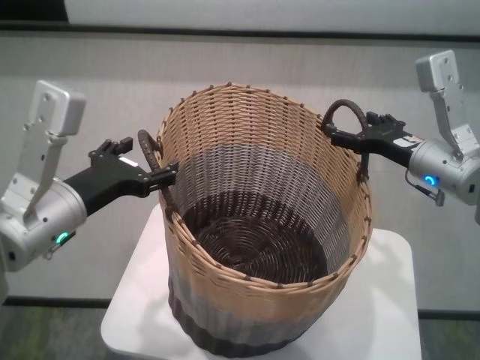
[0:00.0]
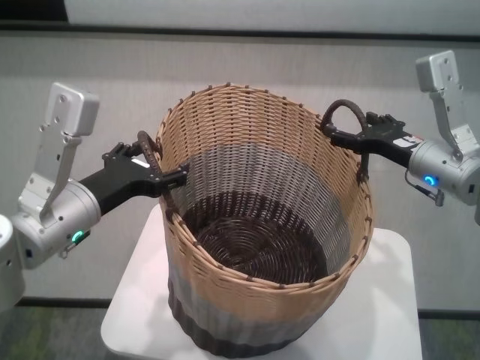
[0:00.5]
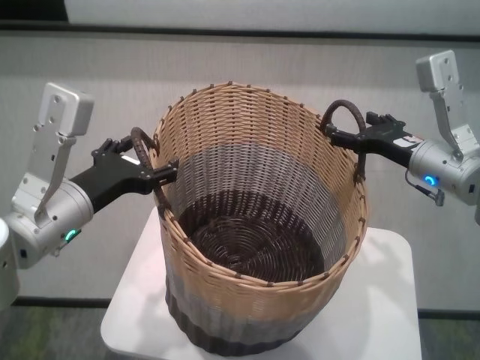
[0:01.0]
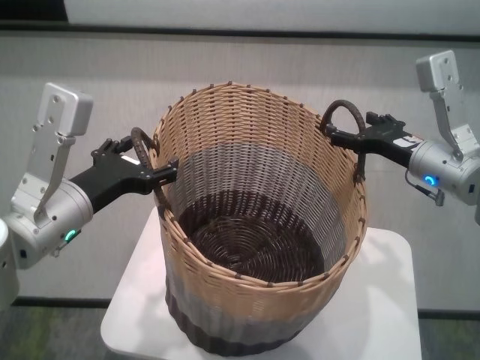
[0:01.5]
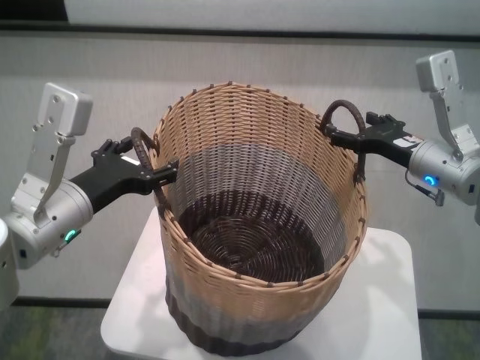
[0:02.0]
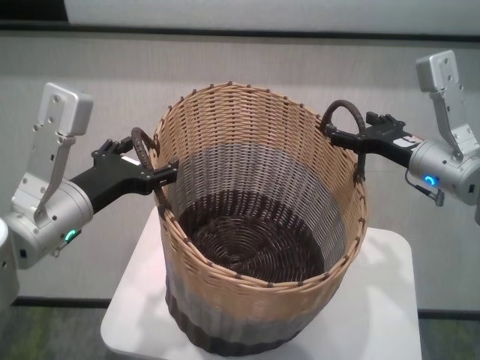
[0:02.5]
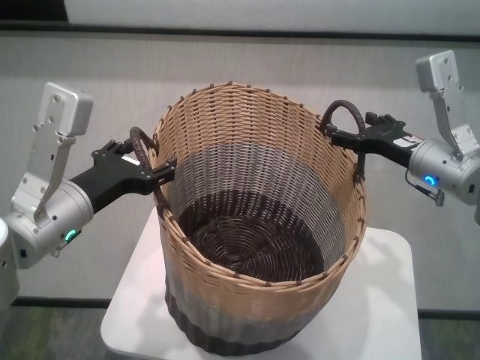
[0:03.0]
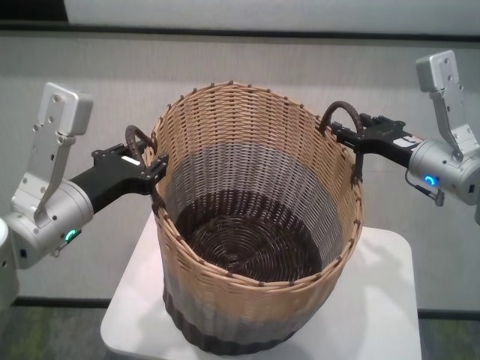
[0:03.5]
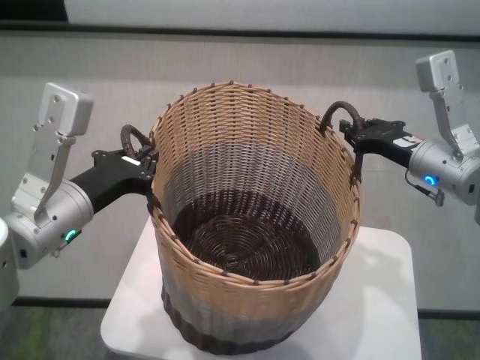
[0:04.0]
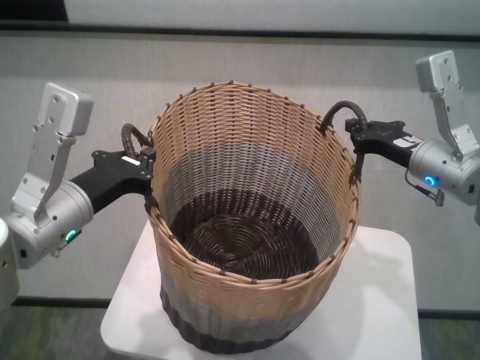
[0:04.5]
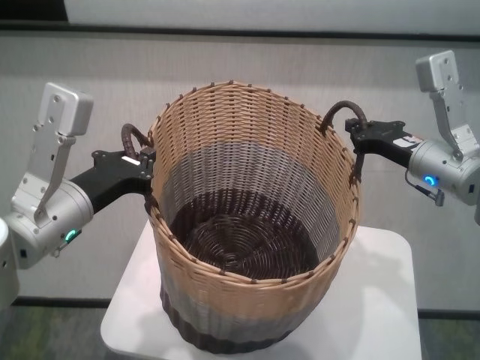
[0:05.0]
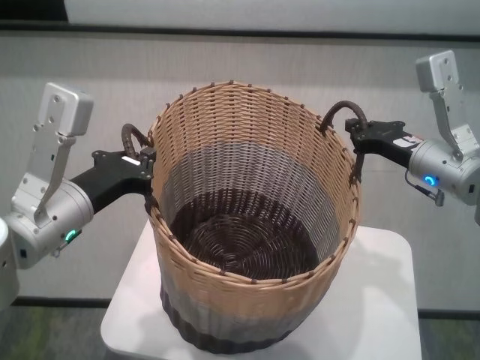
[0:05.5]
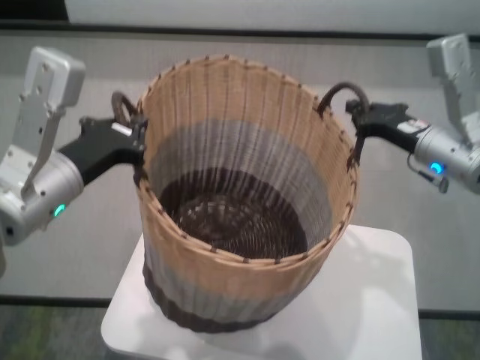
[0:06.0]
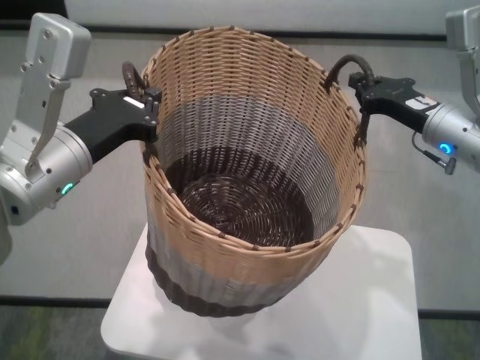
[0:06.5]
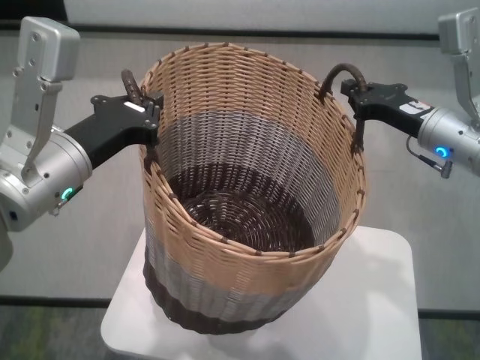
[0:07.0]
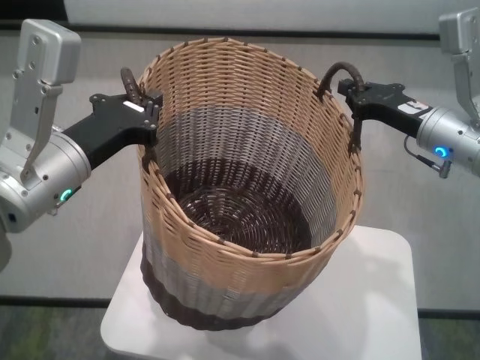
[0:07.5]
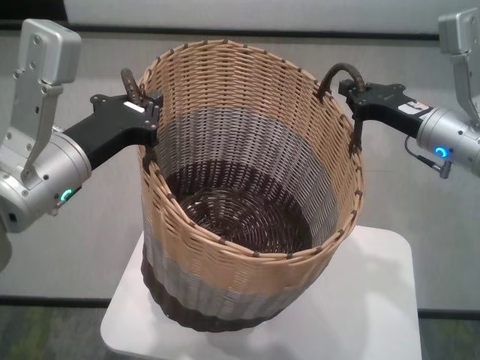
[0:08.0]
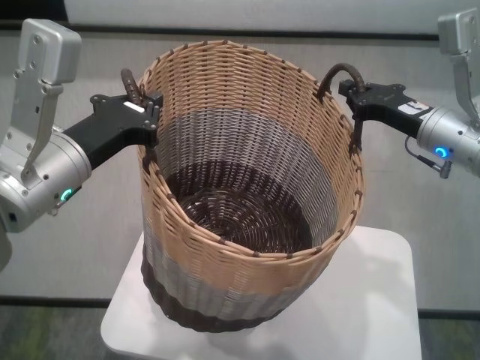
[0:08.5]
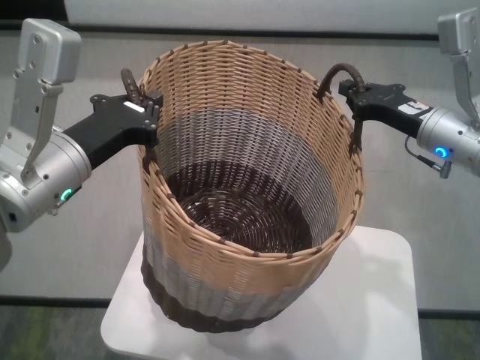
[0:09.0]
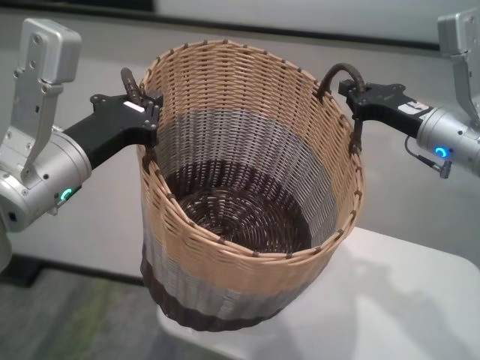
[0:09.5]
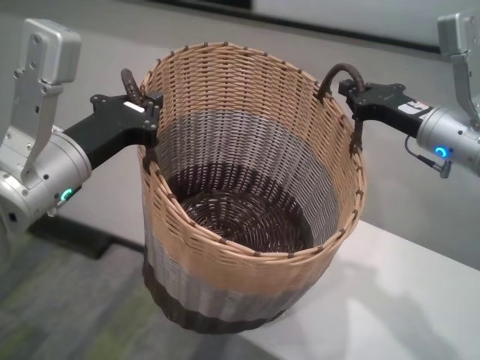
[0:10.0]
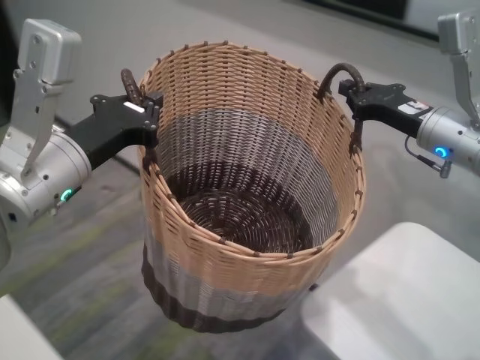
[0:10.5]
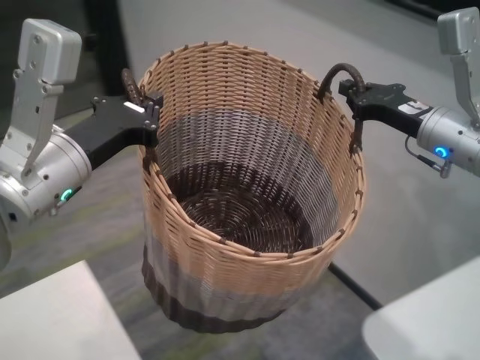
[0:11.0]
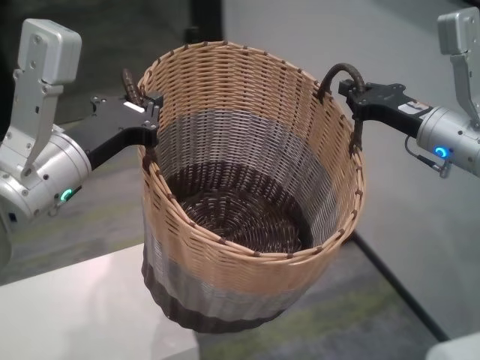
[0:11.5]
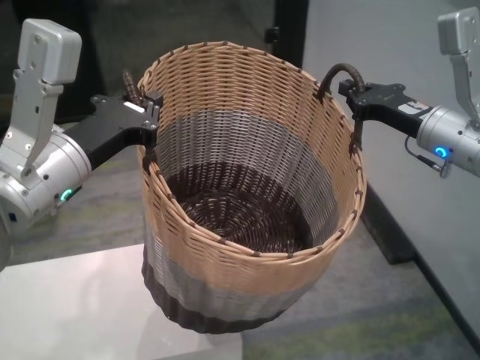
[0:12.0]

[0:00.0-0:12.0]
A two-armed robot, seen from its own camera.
Task of the whole recording: carry the clothes basket in coordination with both hands.
Step, 0:00.0 to 0:05.5: Grasp the basket with both grippers.

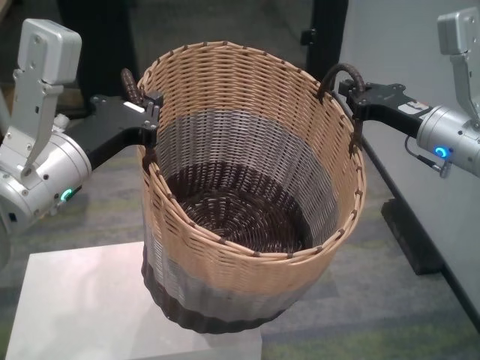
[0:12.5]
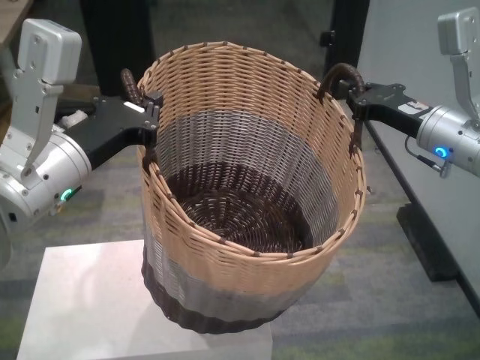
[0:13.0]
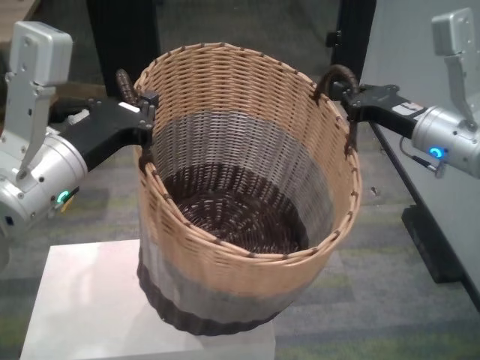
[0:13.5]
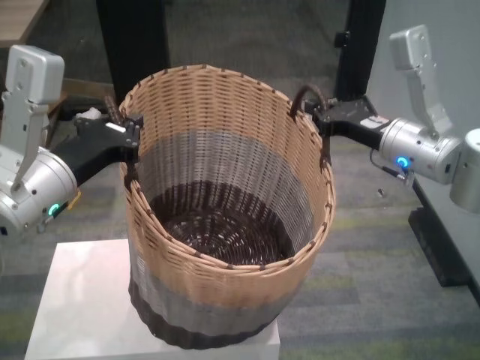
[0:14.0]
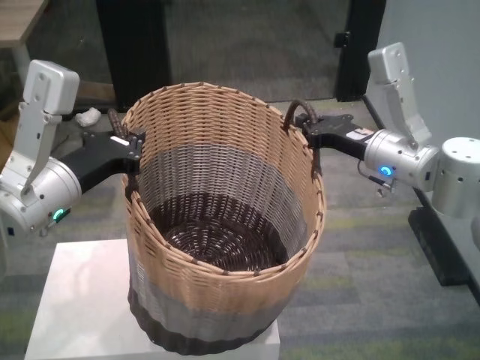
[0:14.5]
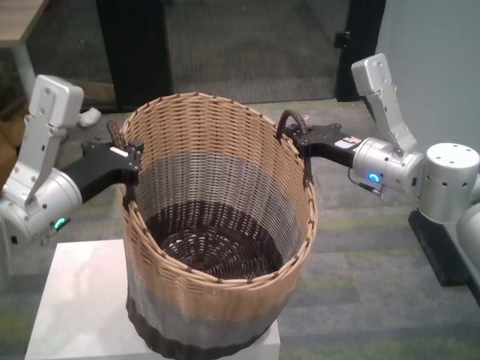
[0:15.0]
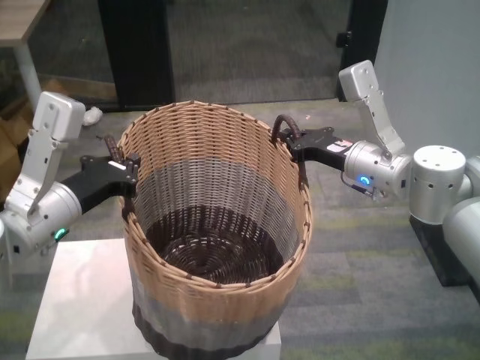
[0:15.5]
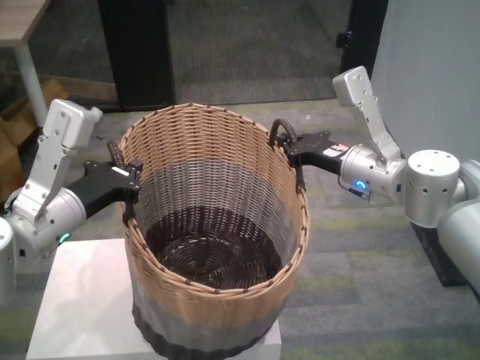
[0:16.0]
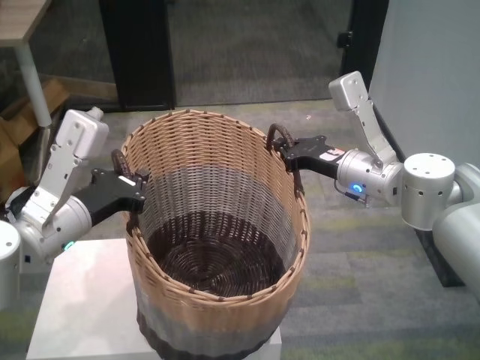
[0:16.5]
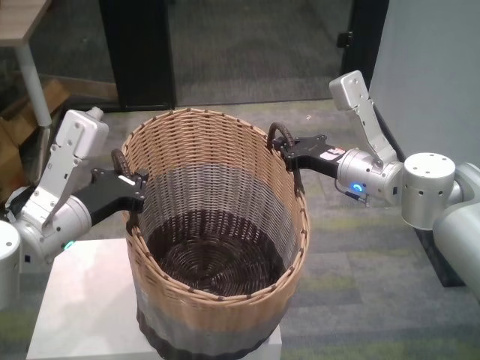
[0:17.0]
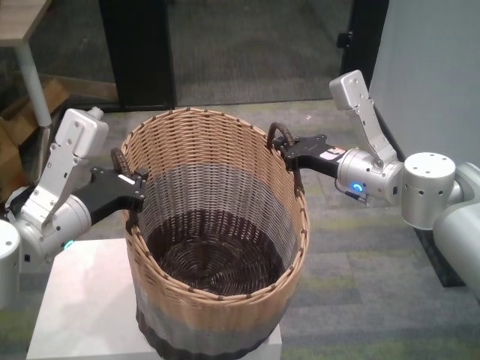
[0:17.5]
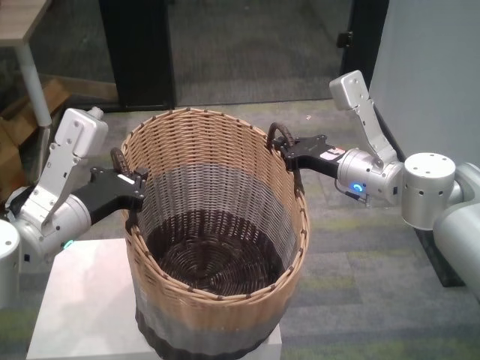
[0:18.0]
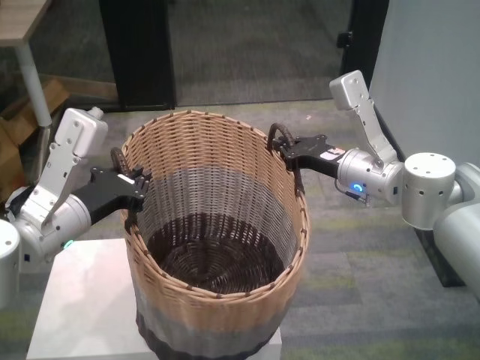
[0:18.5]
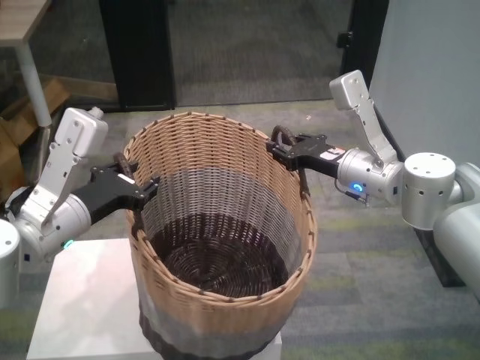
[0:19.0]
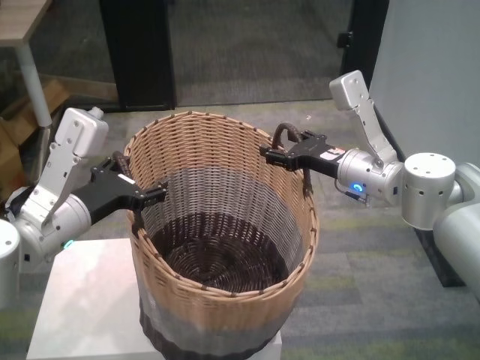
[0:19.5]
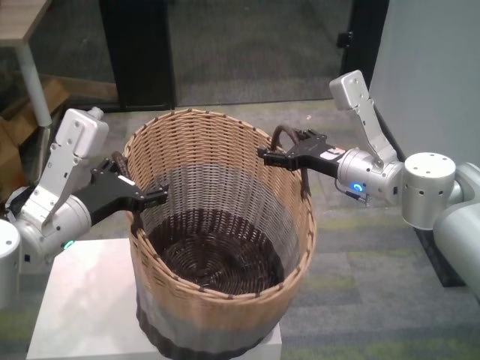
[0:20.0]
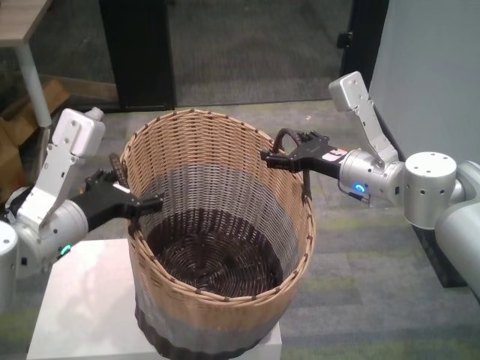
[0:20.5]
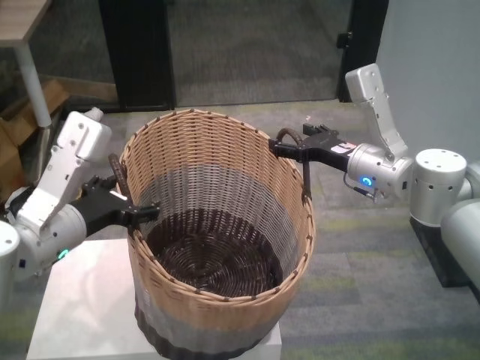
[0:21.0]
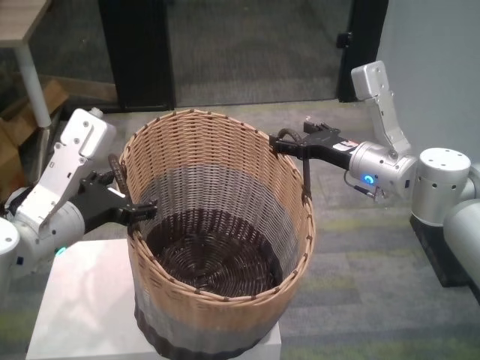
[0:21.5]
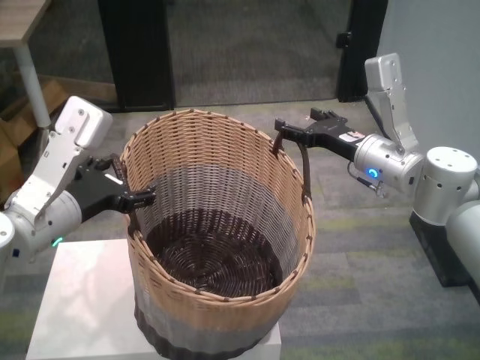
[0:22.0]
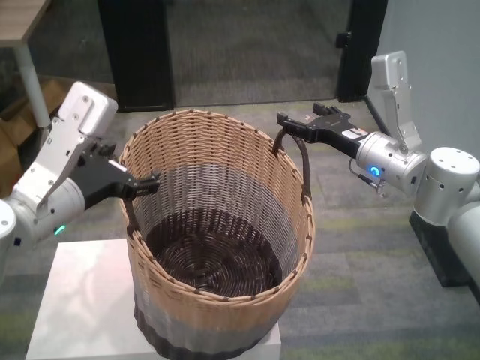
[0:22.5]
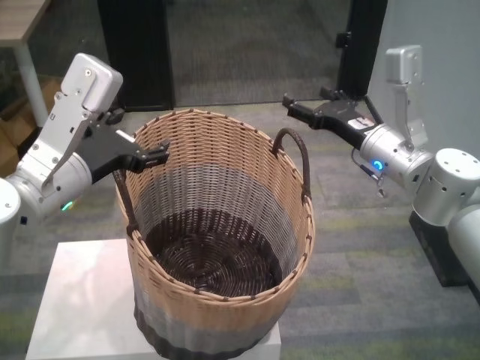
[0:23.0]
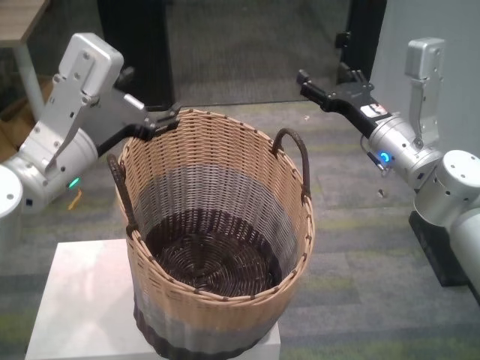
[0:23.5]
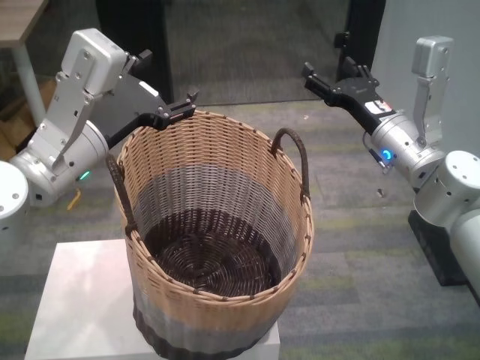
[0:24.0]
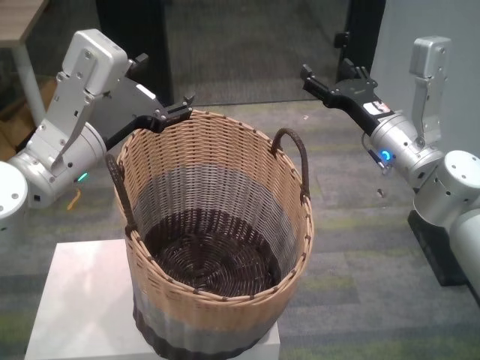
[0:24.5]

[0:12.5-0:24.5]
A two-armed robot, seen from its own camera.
Task of the whole recording: carry the clothes basket in coordination with both hands.
Step, 0:14.0 to 0:19.5: Place the basket on the table with both grippers.

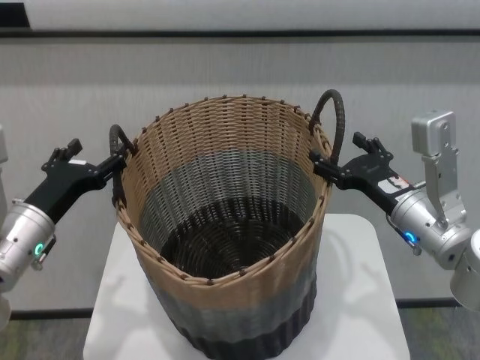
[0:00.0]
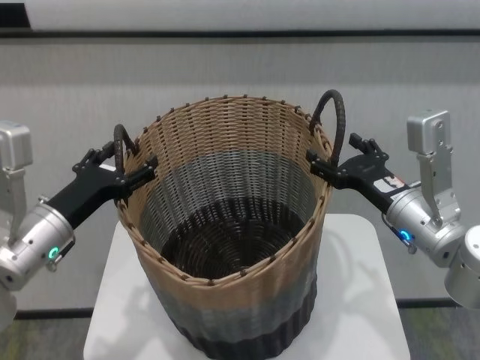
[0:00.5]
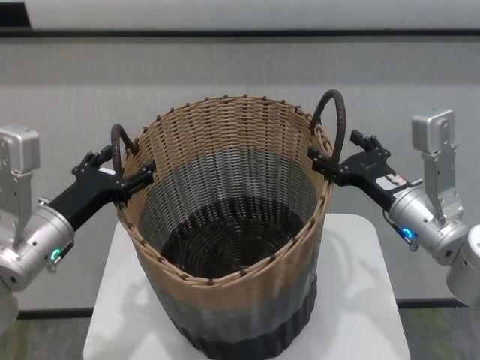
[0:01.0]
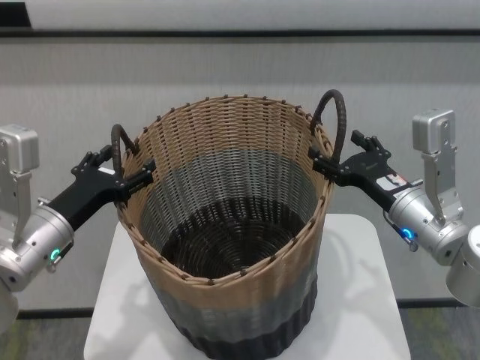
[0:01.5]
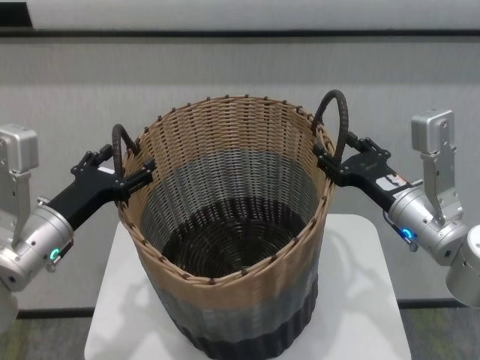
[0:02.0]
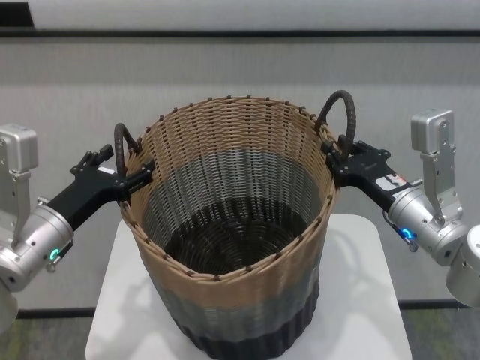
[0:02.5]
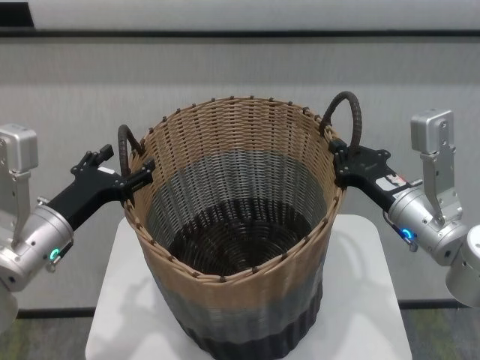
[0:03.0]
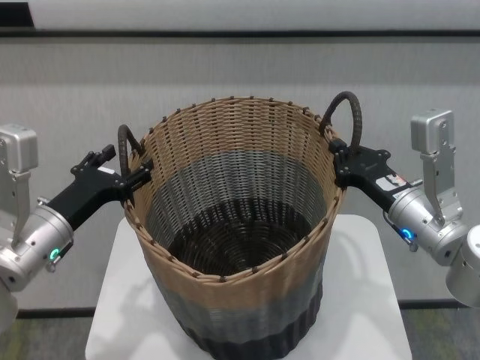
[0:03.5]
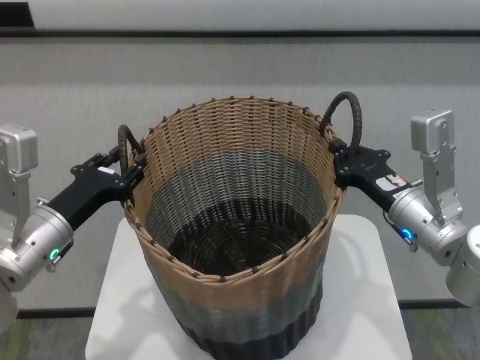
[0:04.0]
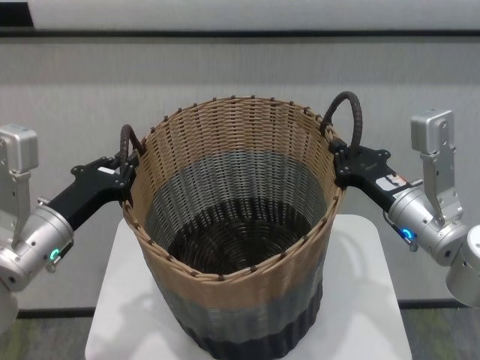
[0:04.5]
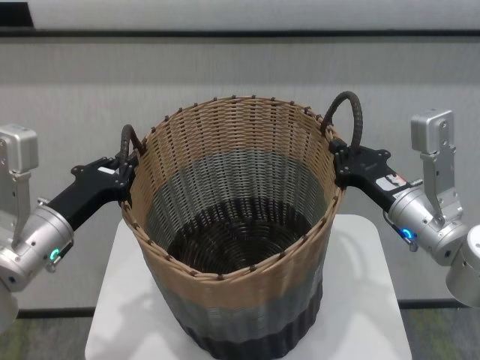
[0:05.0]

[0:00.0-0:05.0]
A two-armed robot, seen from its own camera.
Task of the whole recording: carry the clothes basket in coordination with both hands.
Step, 0:00.0 to 0:02.5: Grasp the basket with right gripper.
Step, 0:03.0 to 0:04.5: Grasp the basket with left gripper.
